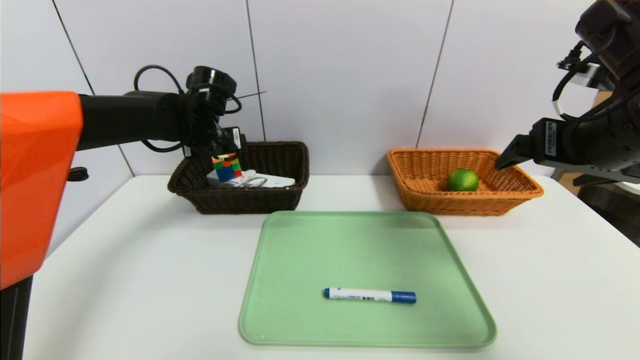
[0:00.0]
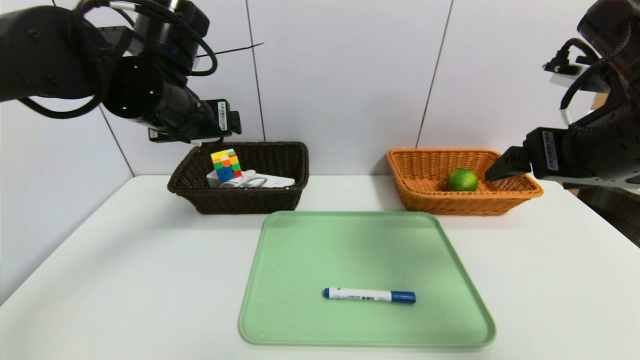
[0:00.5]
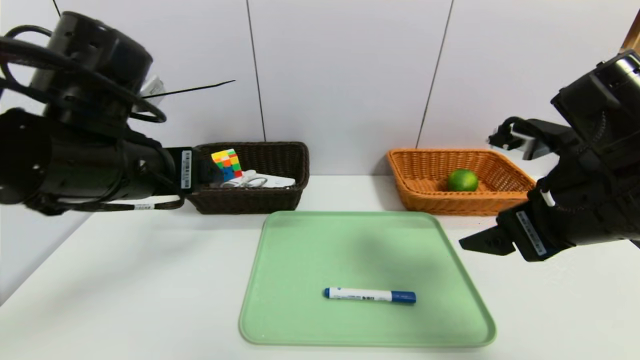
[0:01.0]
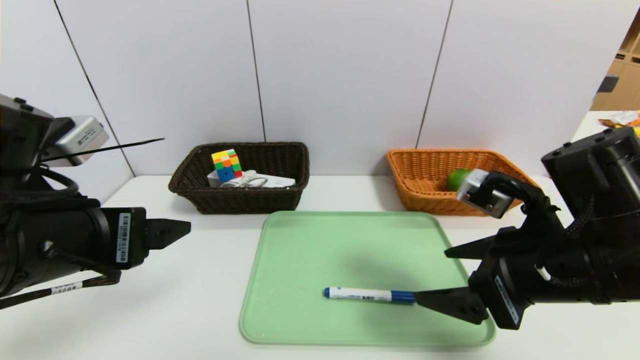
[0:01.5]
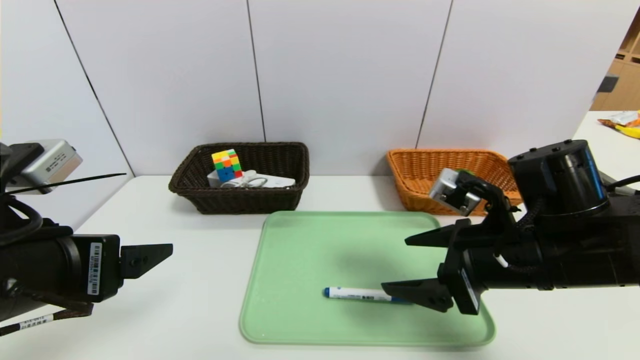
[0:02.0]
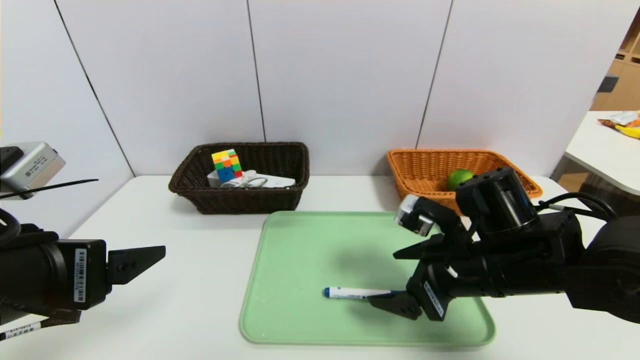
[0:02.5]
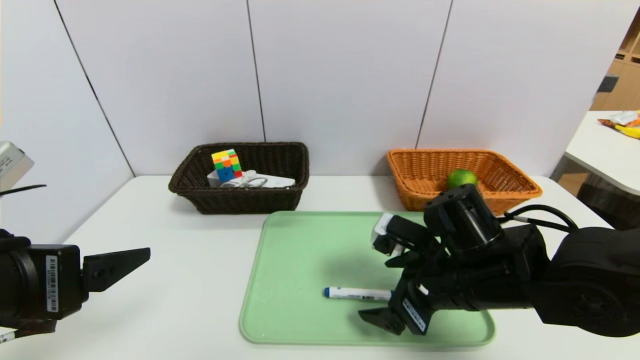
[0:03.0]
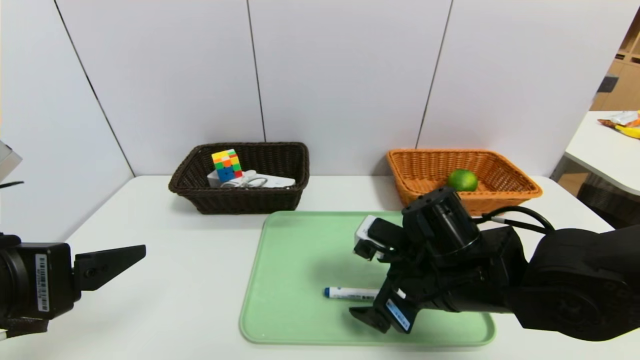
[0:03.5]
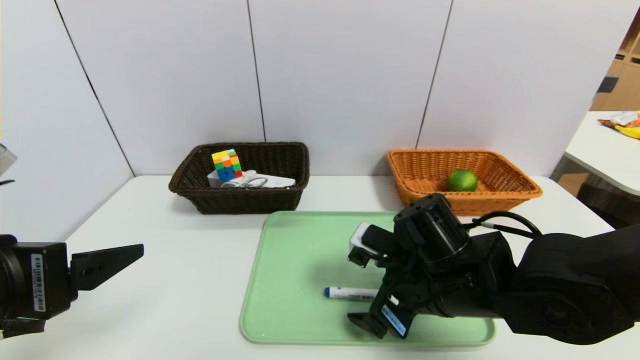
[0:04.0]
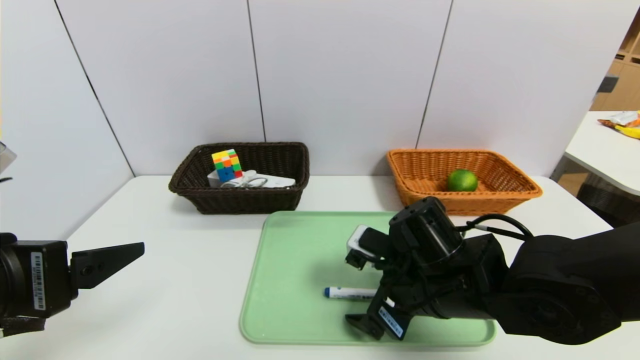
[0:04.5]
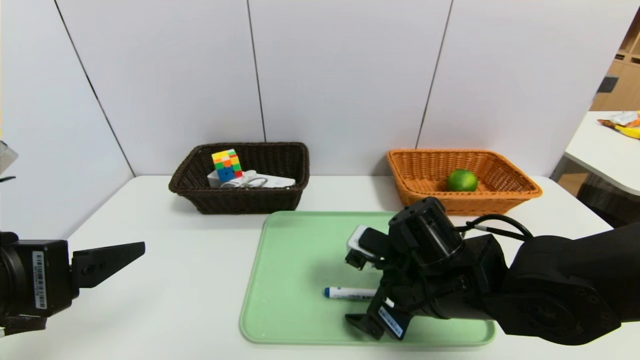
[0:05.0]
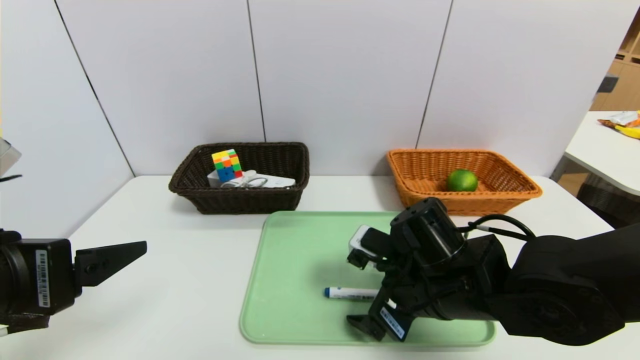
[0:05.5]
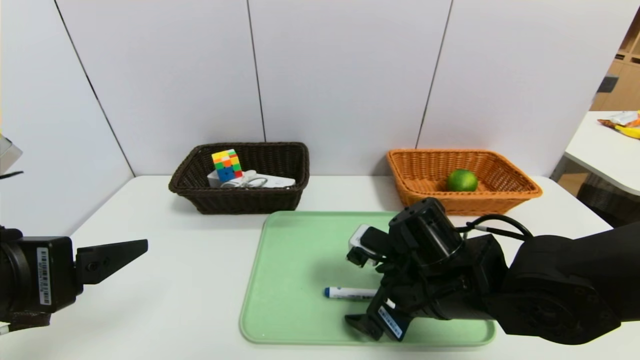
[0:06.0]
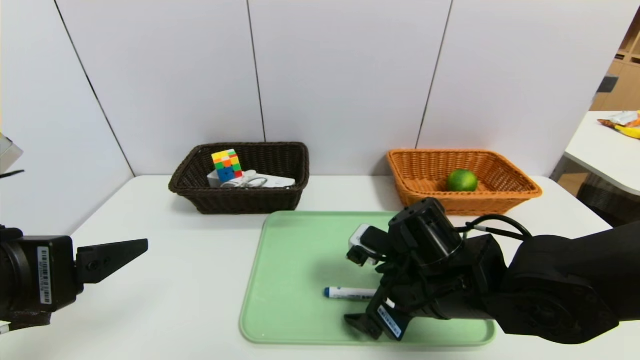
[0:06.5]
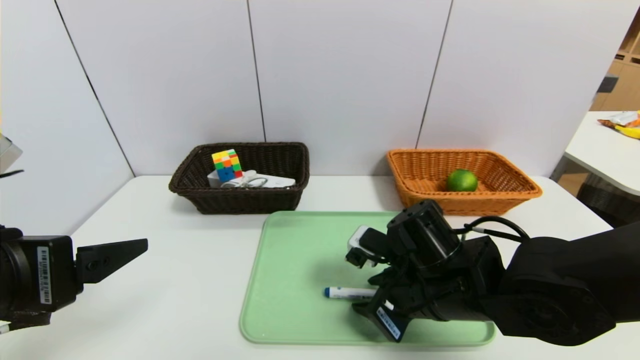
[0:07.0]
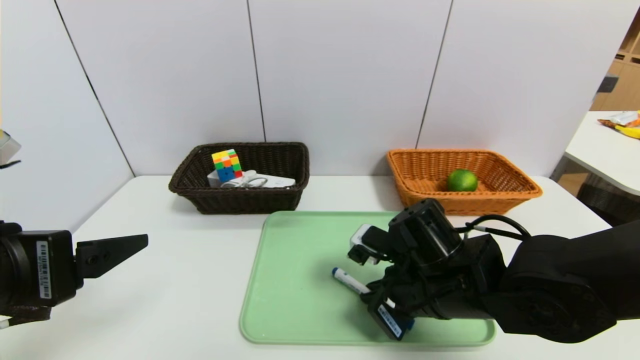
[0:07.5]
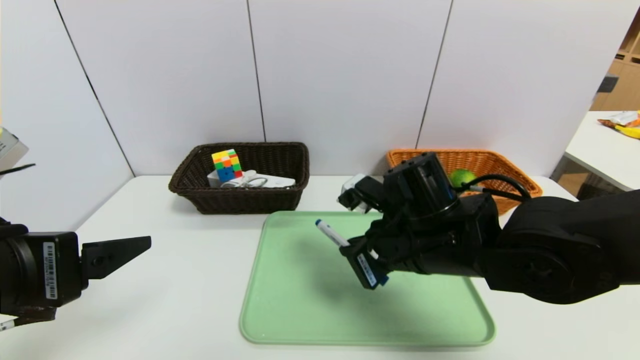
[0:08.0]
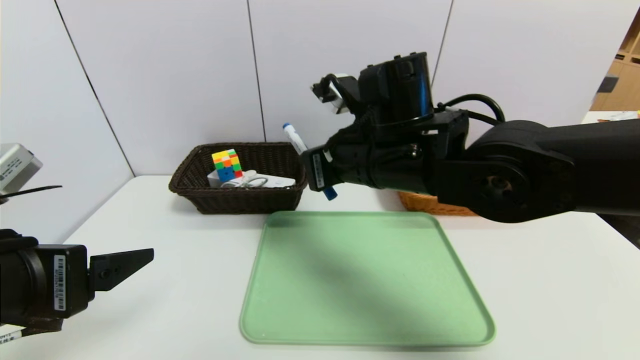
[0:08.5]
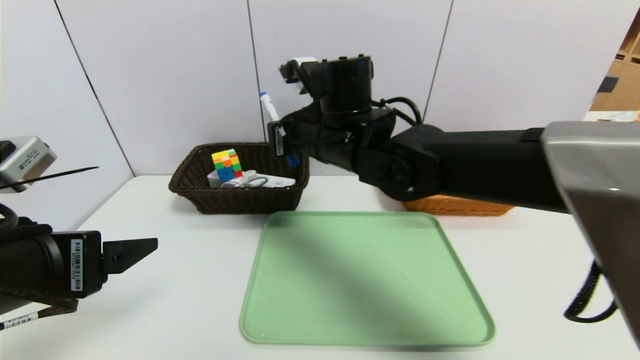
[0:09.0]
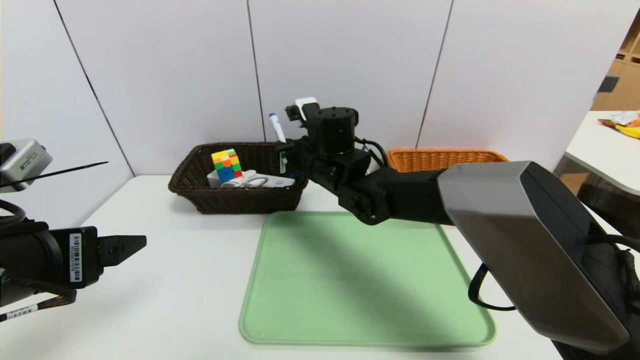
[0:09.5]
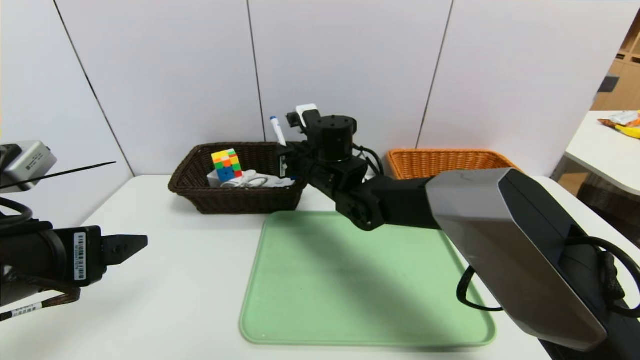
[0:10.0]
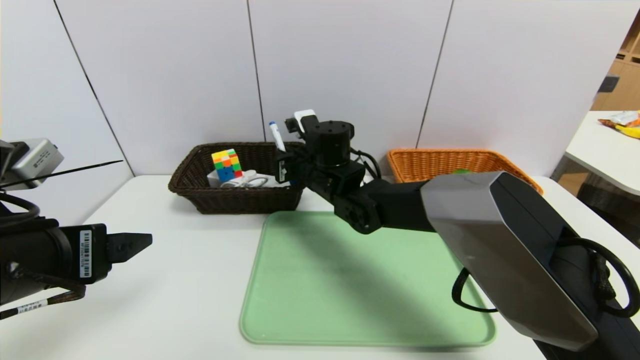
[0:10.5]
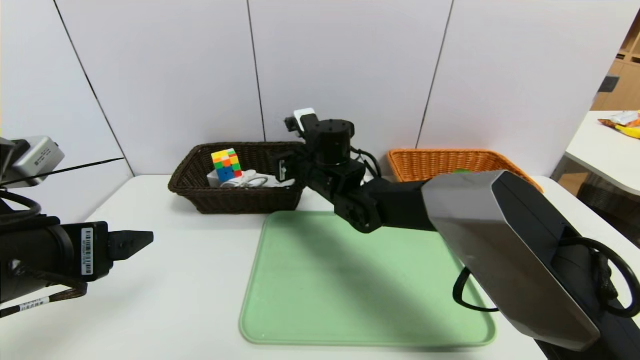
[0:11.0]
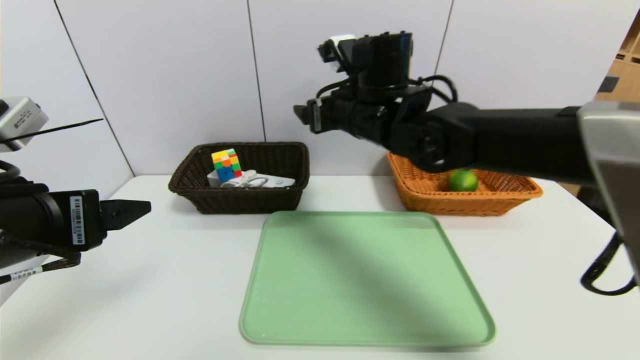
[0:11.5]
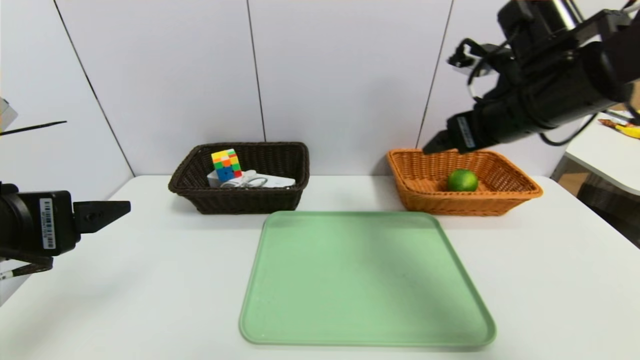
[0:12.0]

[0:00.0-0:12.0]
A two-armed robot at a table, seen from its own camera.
Task of the whole recording: place the food in the right basket with the right gripper, and place the non food items in the left basket with the left gripper.
Step, 0:00.5 to 0:11.0: Grasp the blue marker and put it in the left basket.
0:00.0 to 0:02.0: The left gripper heads backward, covering about 30 cm, while the right gripper moves downward and to the left, some 15 cm.
0:02.0 to 0:04.0: The right gripper travels to the left and downward by approximately 10 cm.
0:04.0 to 0:06.0: Both grippers stay put.
0:06.0 to 0:08.0: The right gripper ends up roughly 5 cm from where it was, and closes up.
0:08.0 to 0:10.0: The right gripper goes about 20 cm forward and to the left.
0:10.0 to 0:12.0: The right gripper travels to the right, upward and backward by some 30 cm, and opens.

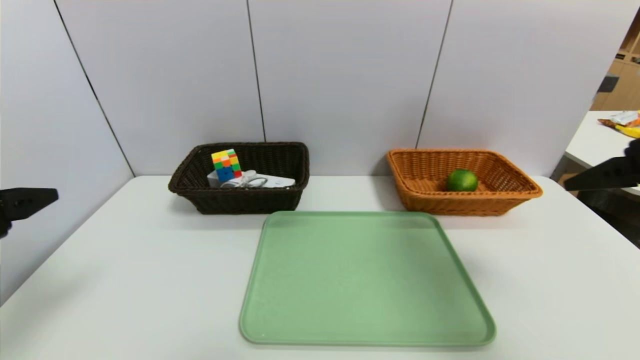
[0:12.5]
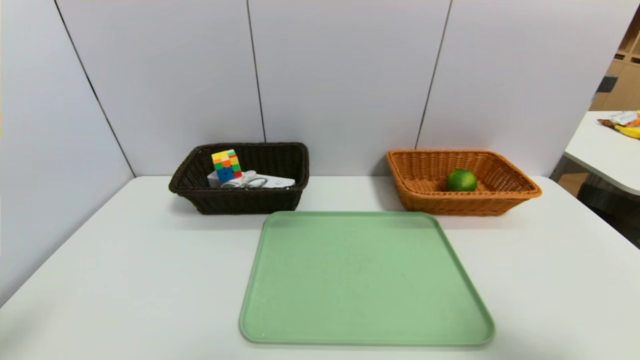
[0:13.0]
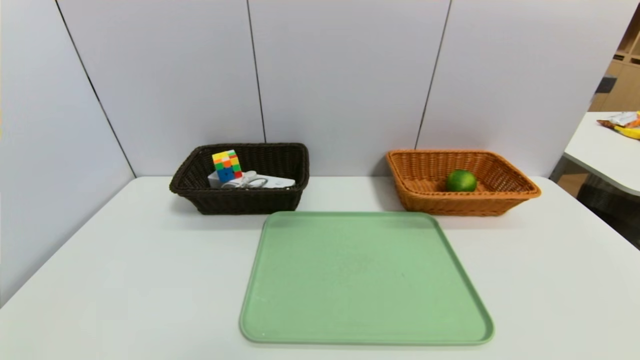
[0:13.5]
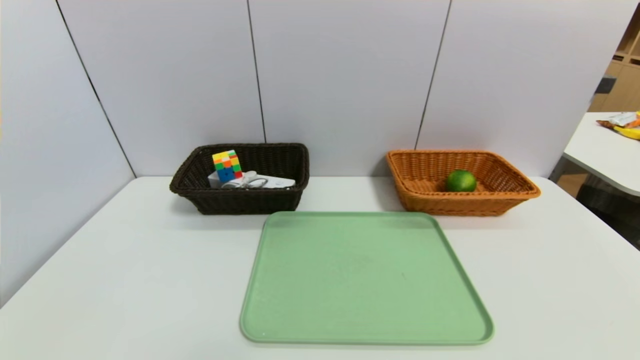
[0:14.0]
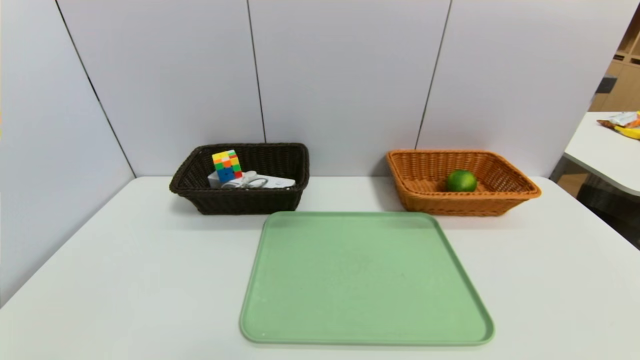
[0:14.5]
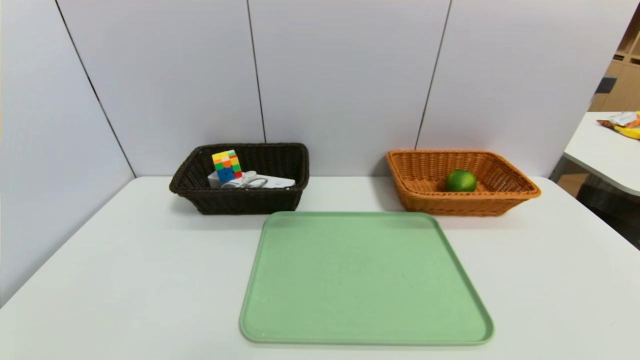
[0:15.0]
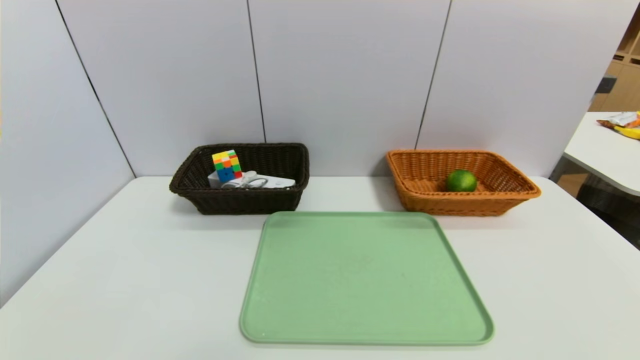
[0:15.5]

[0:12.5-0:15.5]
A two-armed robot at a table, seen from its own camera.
Task of the whole recording: place the food in the right basket with the right gripper, and place the non food items in the left basket with the left gripper.
0:12.5 to 0:14.0: The two grippers go approximately 25 cm backward and downward.

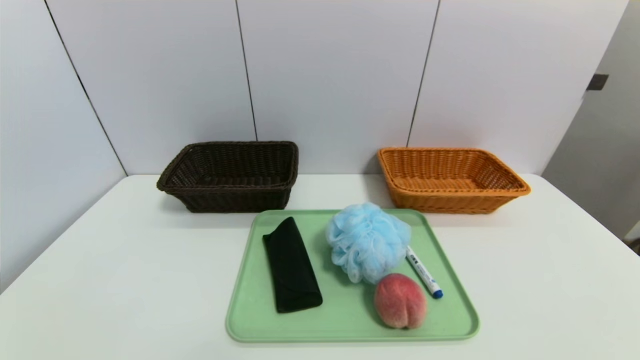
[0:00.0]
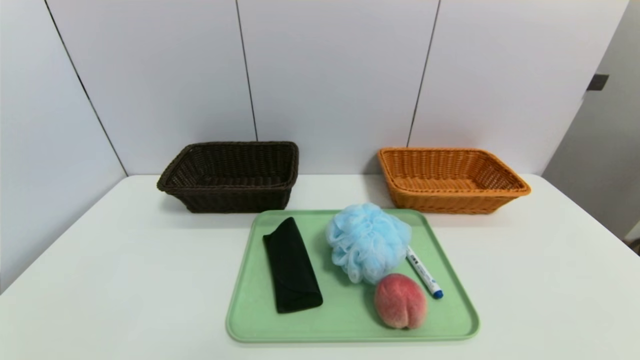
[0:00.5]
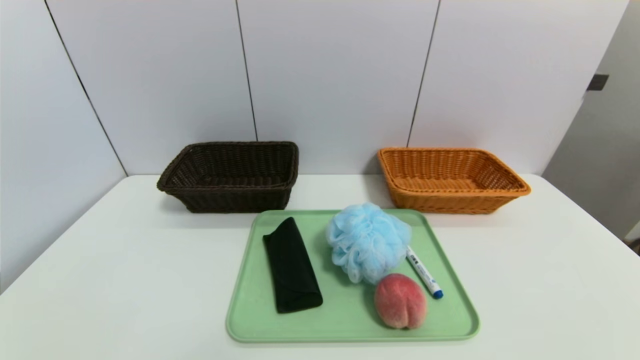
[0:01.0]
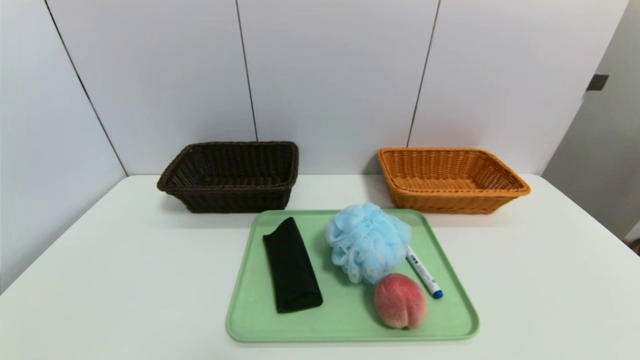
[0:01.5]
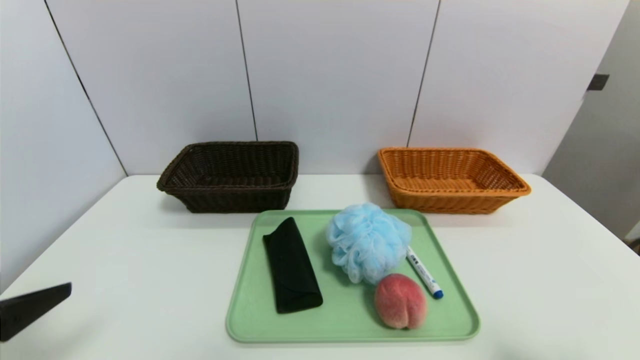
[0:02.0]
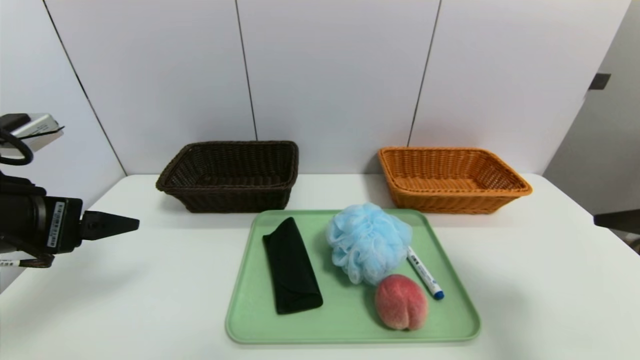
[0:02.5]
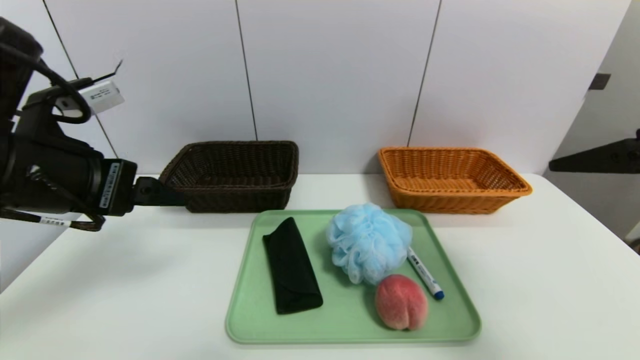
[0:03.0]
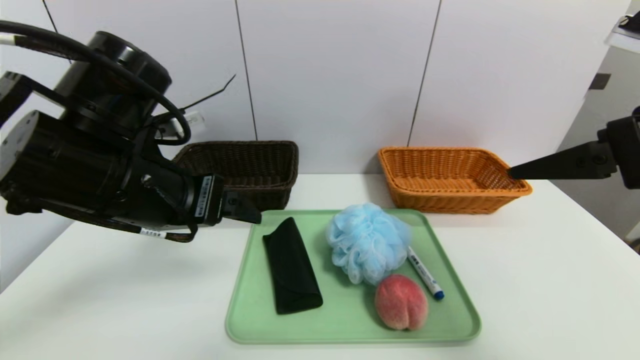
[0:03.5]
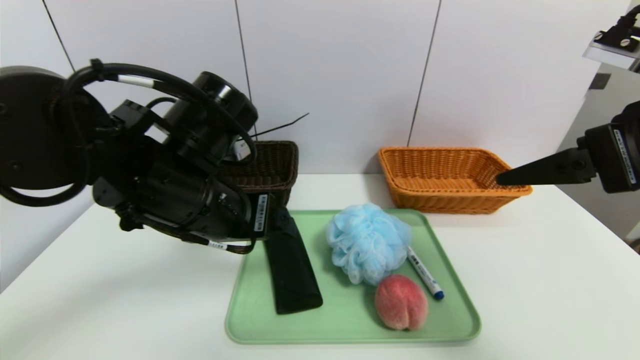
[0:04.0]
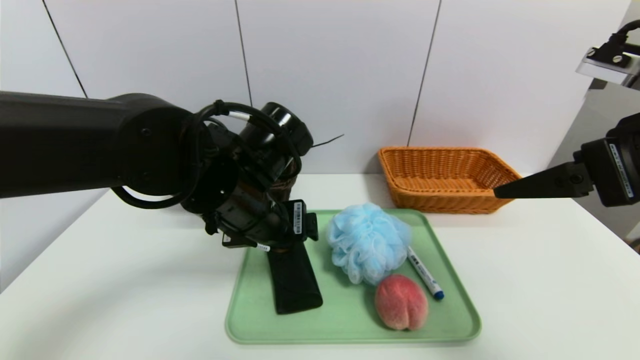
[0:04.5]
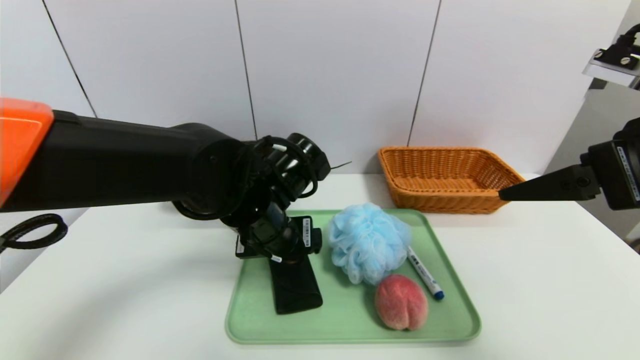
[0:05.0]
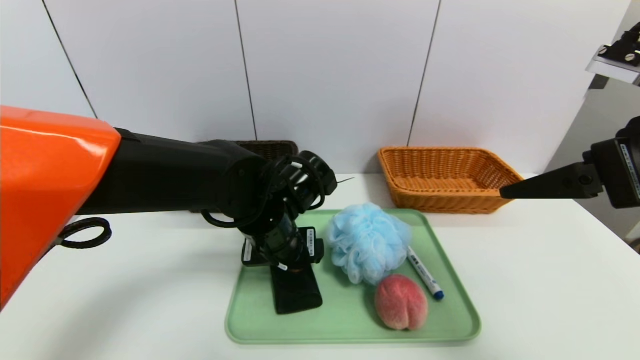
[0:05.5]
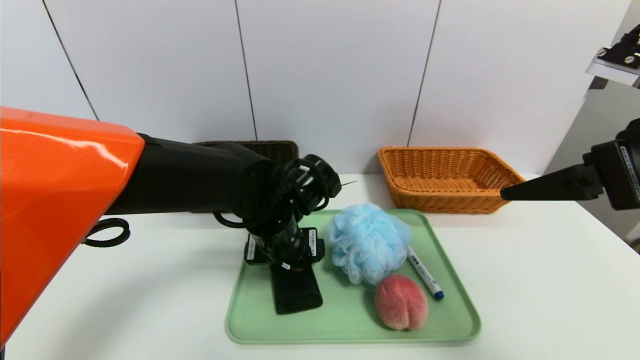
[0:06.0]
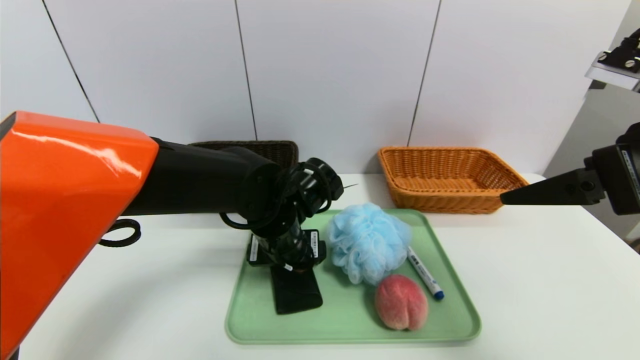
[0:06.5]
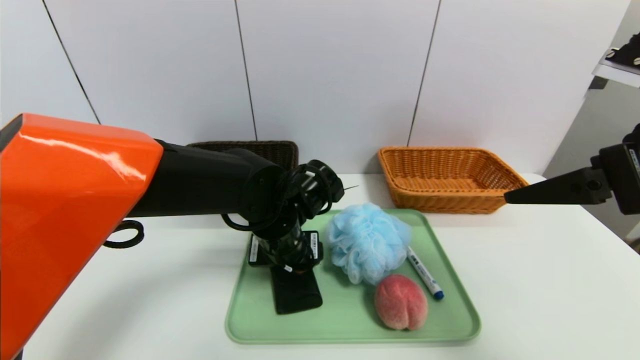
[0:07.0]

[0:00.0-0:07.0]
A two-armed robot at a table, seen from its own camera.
Task of the whole recording: place the food in the right basket with the right gripper, and place the non food items in the left basket with the left gripper.
0:00.0 to 0:02.0: The left gripper heads upward and forward, covering approximately 20 cm.
0:02.0 to 0:03.5: The right gripper heads forward, upward and to the left, covering roughly 20 cm, while the left gripper travels forward and to the right by approximately 20 cm.
0:03.5 to 0:05.0: The left gripper moves to the right, downward and forward, about 15 cm.
0:05.0 to 0:07.0: The left gripper moves some 5 cm.
